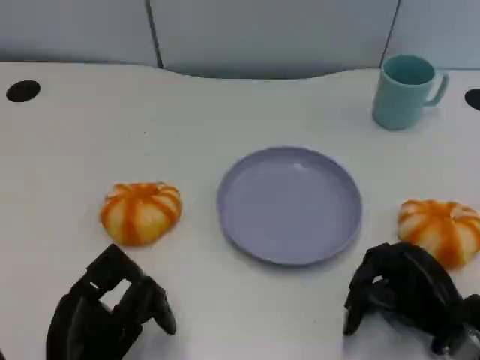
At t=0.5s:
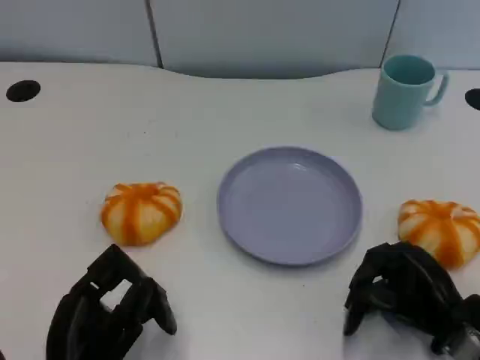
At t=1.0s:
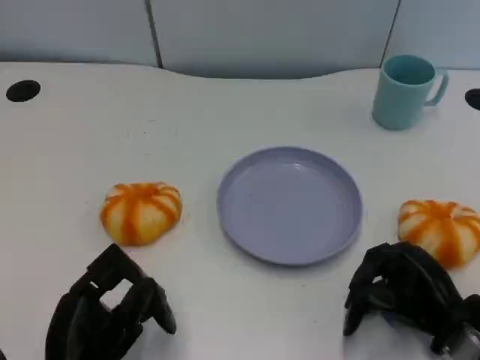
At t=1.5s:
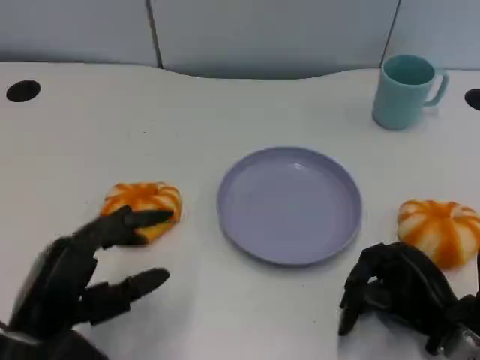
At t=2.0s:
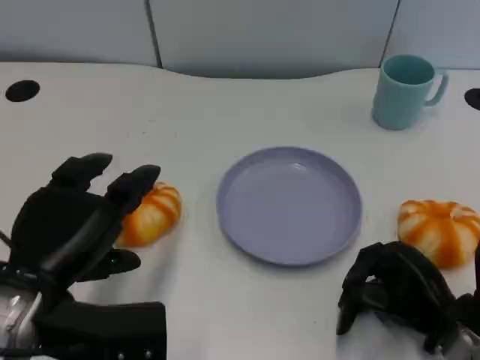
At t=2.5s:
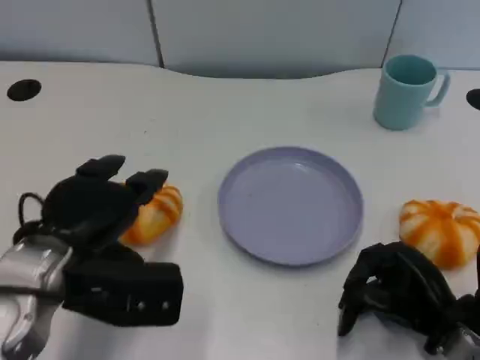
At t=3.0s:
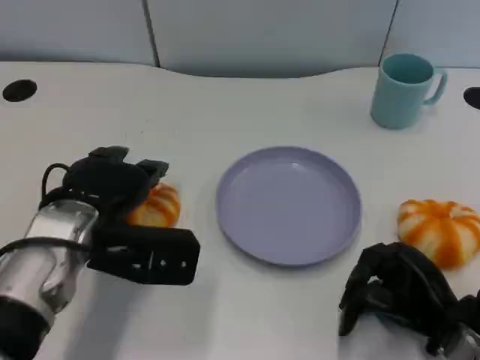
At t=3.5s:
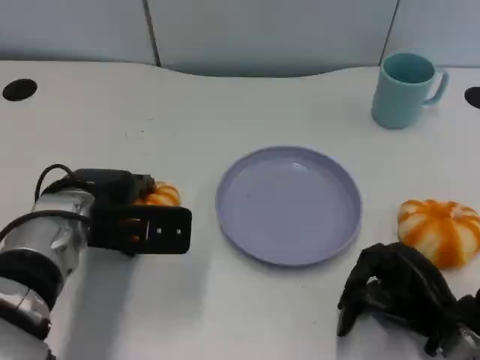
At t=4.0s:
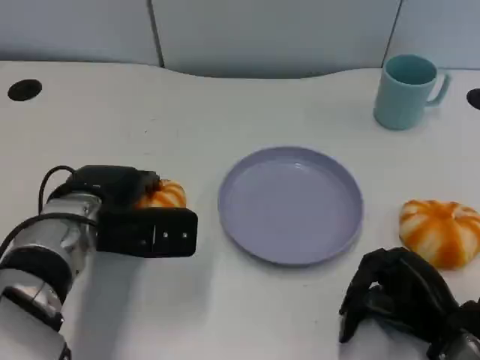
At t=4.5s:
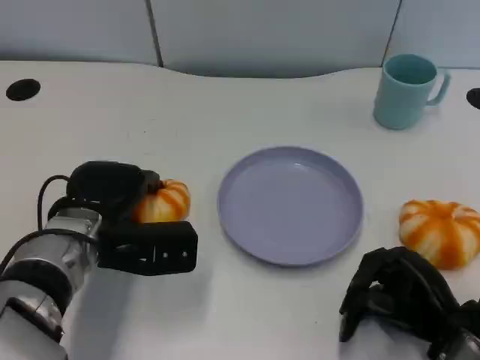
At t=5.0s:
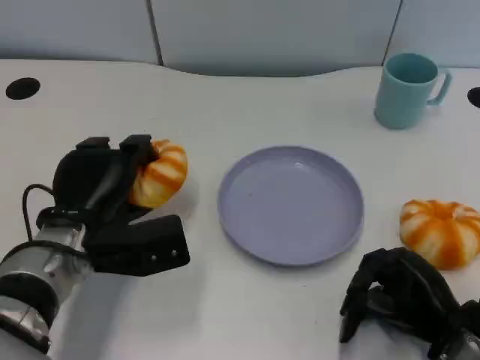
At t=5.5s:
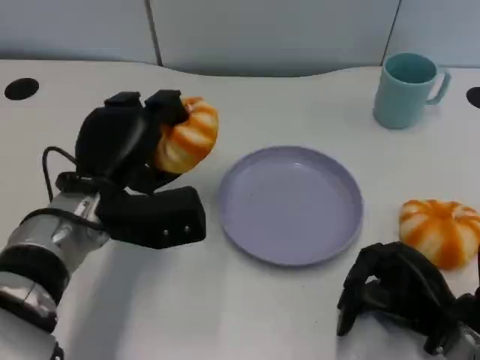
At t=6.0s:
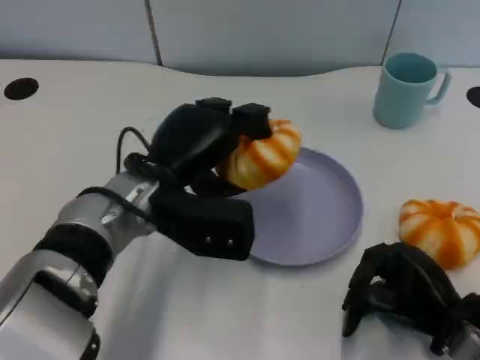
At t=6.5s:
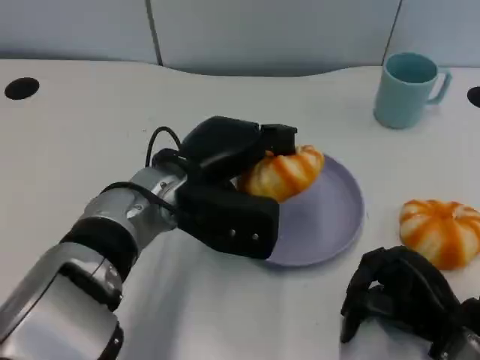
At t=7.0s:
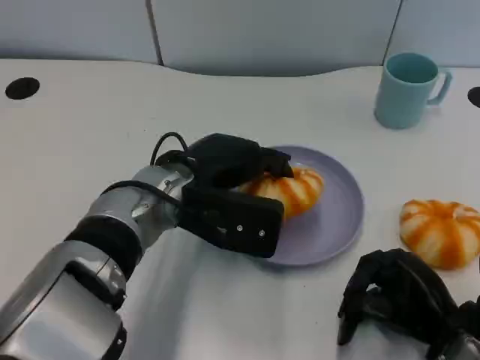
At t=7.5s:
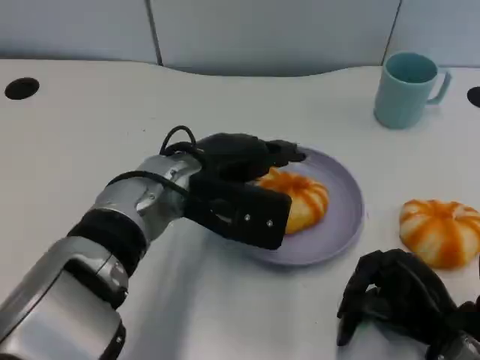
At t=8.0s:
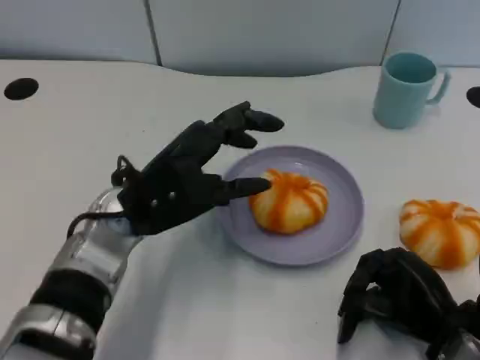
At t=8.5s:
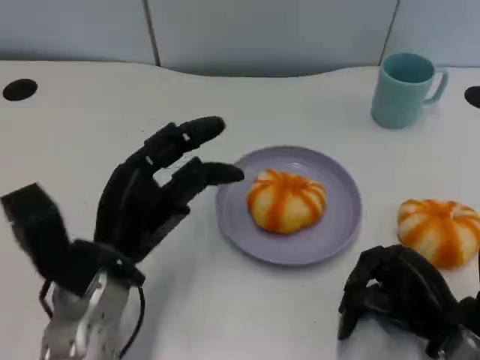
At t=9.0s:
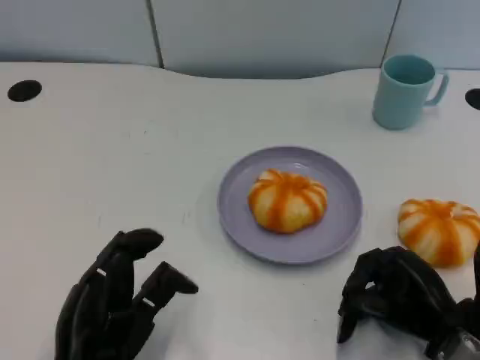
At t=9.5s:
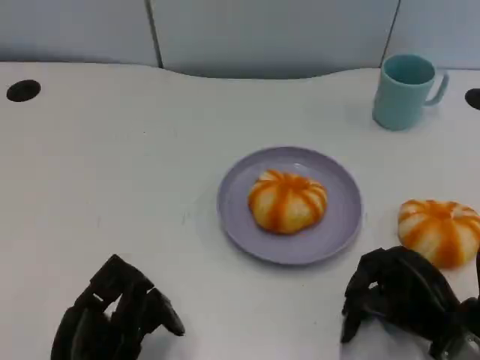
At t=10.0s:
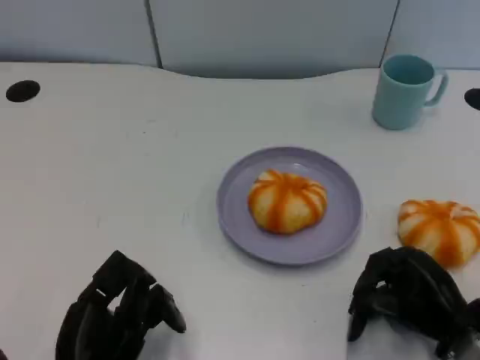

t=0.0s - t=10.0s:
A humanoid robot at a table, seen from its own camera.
Task of the whole recording: Grasp the bread from the table and place it into the plate.
t=0.0s - t=2.0s: The left hand goes approximately 10 cm upward and forward.
t=2.0s - t=4.0s: The left hand shifts some 10 cm forward.
t=4.0s - t=6.0s: The left hand goes about 5 cm to the right.
t=8.0s - t=10.0s: The left hand is displaced backward and downward by roughly 20 cm.

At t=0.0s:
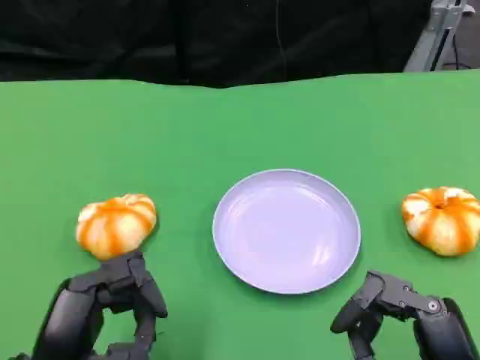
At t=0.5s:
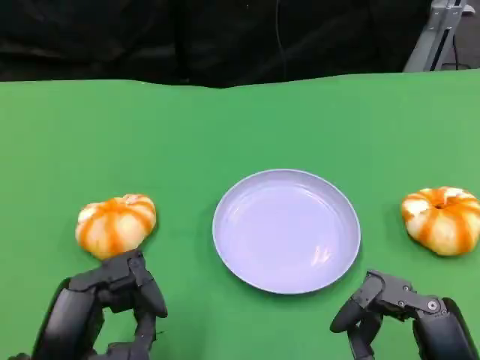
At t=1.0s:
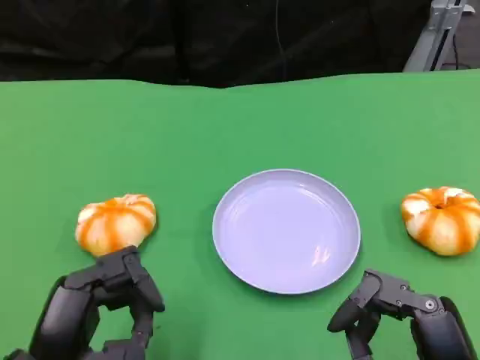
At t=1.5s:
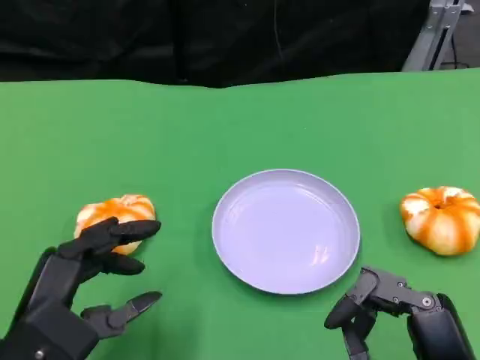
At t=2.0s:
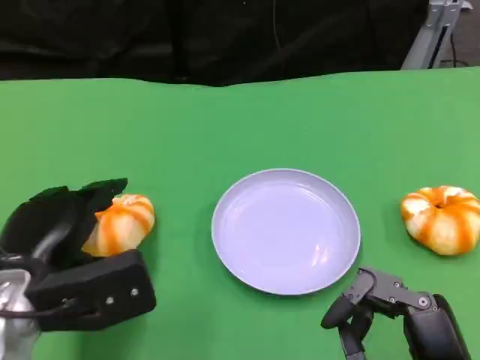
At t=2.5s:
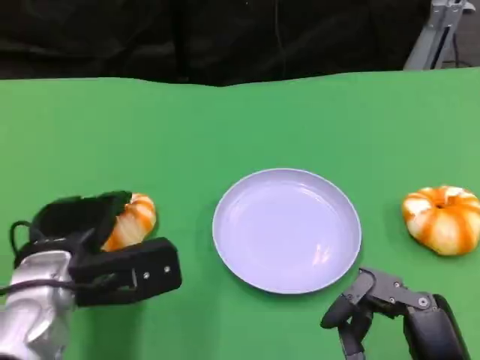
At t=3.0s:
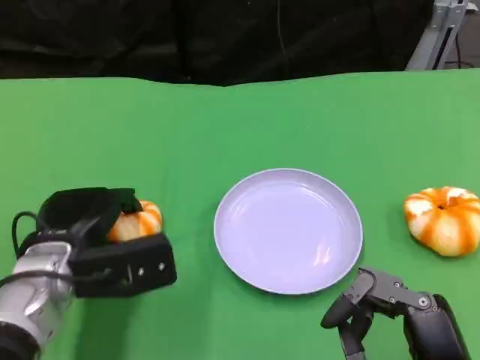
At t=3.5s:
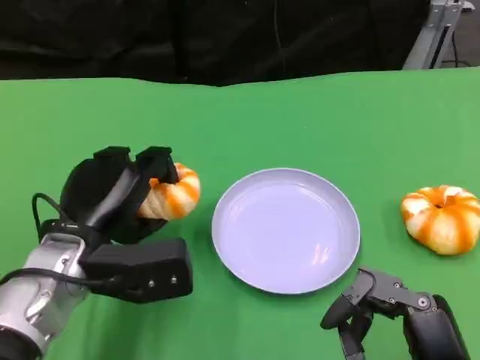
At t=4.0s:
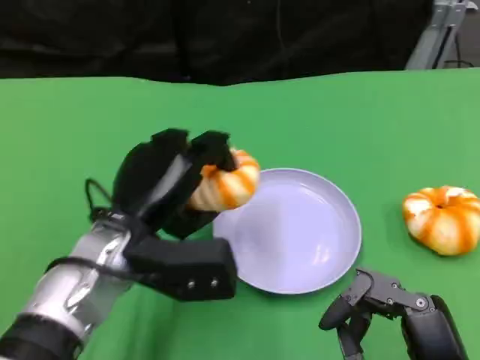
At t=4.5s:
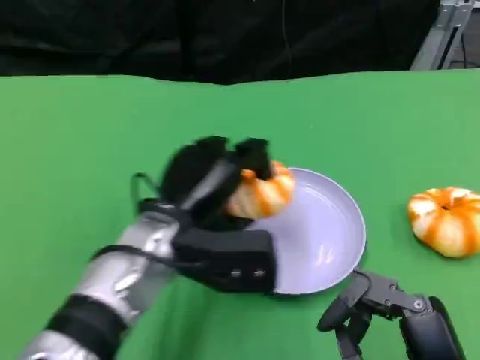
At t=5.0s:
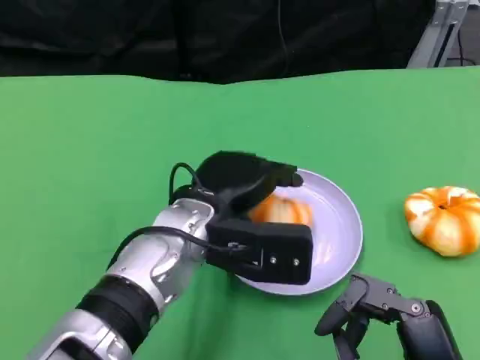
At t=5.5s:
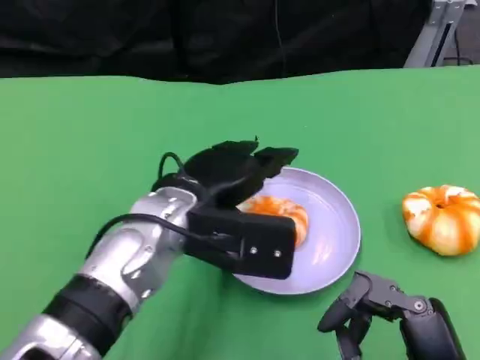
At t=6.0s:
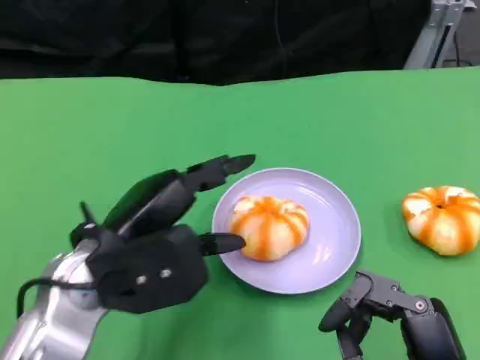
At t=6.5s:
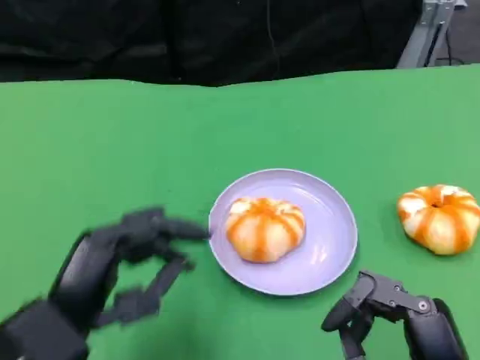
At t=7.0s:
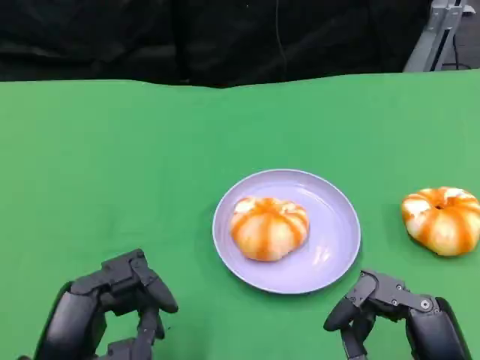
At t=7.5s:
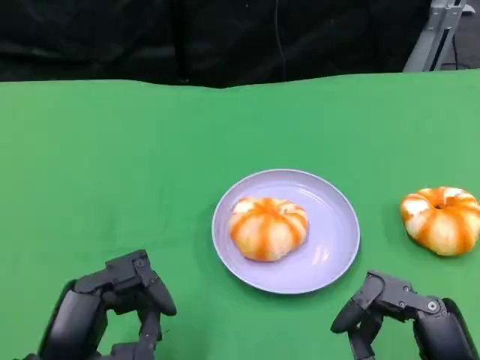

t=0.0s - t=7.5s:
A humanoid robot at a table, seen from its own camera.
Task of the whole recording: Grasp the bread from the table and place it into the plate.
t=0.0s - t=2.0s: The left hand heads forward, covering approximately 10 cm.
t=2.0s - t=4.0s: The left hand moves to the right, roughly 10 cm.
t=5.5s - t=7.5s: The left hand moves backward, to the left and downward, approximately 20 cm.

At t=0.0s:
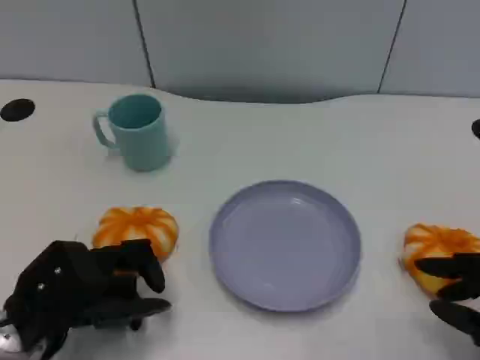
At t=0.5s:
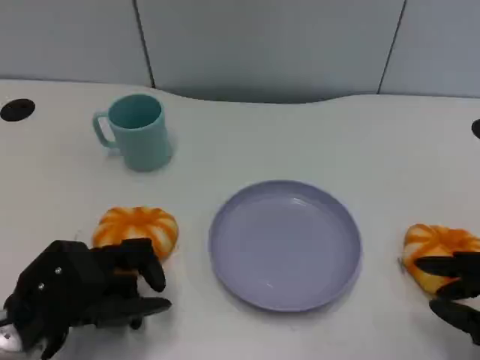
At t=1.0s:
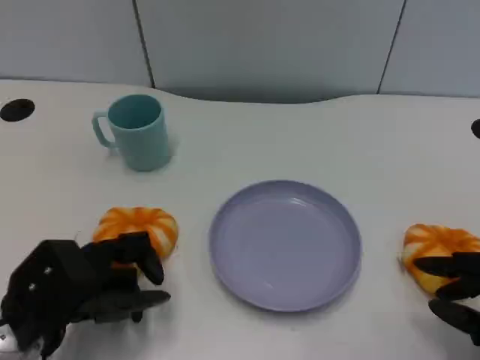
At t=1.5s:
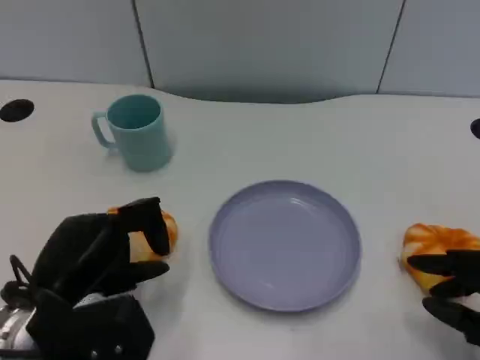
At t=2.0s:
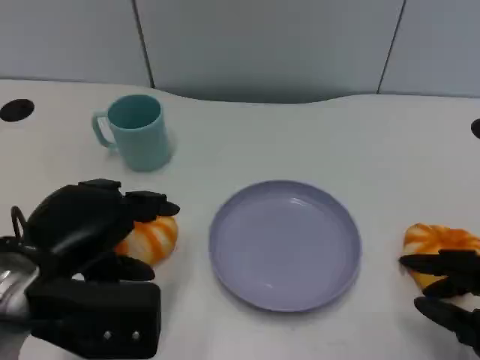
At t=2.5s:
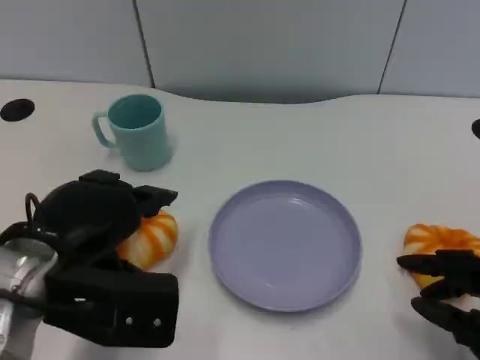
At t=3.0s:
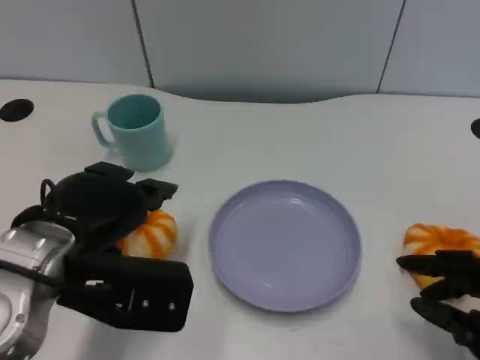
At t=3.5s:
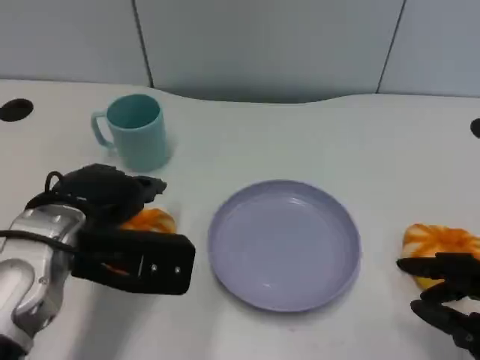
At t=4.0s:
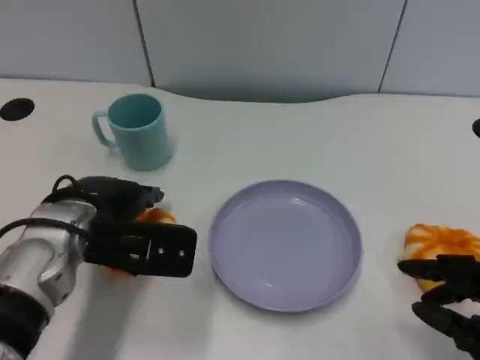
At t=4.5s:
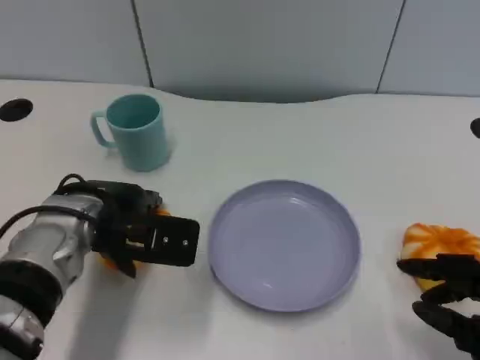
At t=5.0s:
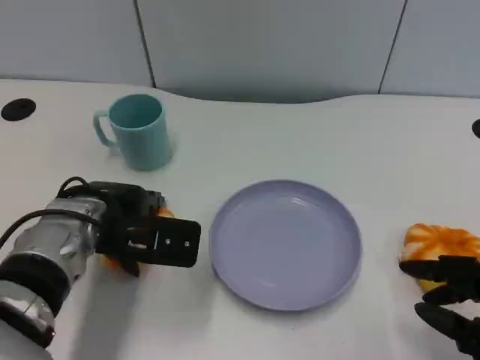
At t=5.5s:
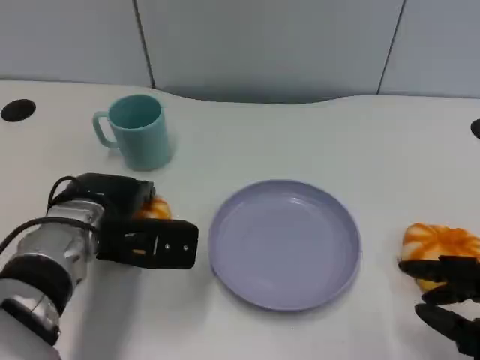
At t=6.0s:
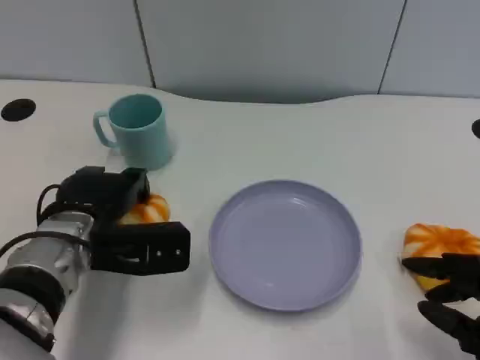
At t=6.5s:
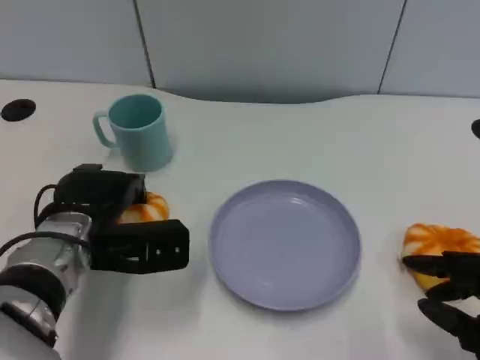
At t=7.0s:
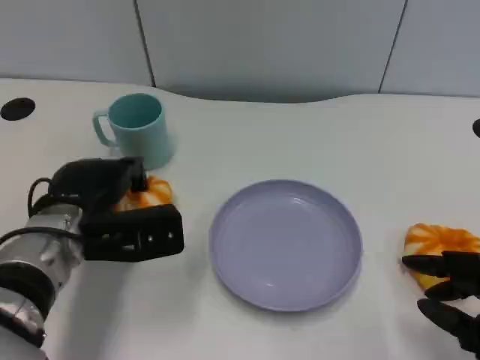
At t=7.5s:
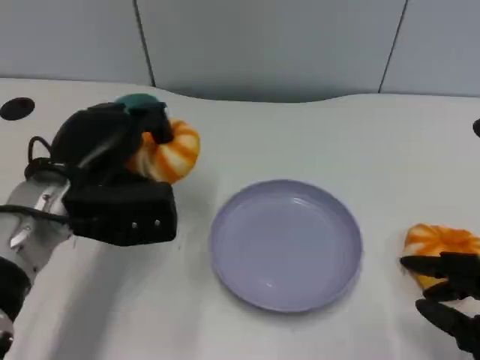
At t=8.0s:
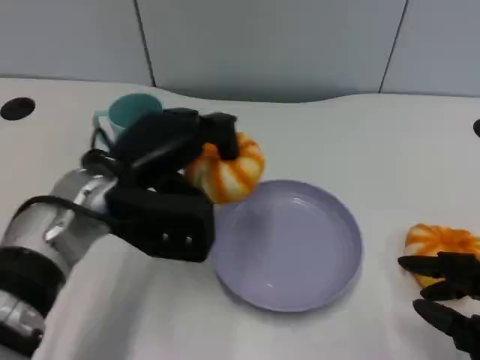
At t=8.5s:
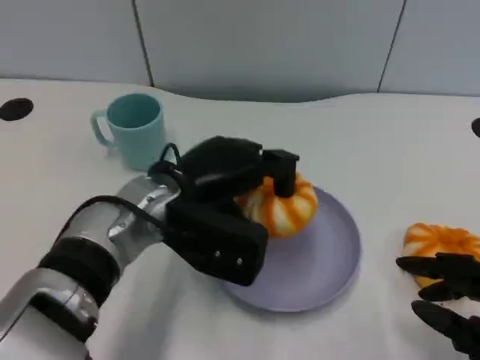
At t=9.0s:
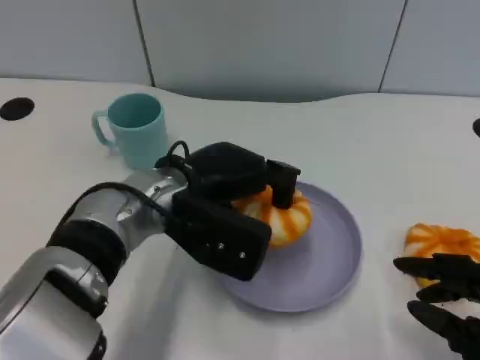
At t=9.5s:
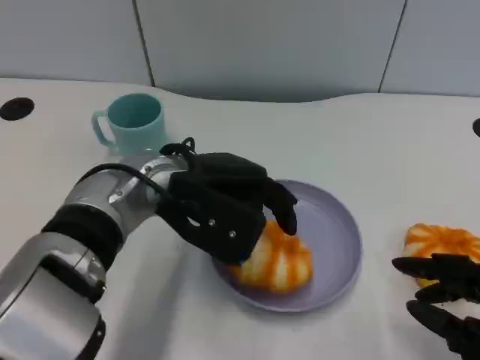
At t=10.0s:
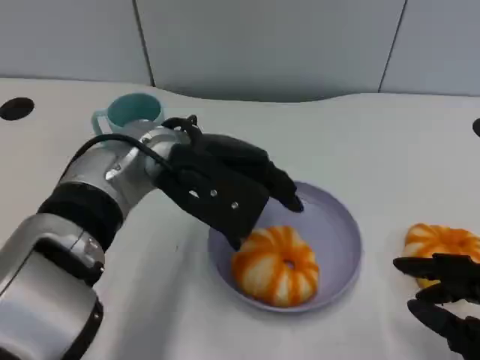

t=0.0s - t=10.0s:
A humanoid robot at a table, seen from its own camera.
Task of the whole recording: Grasp the bread from the table and place it into the plate.
t=0.0s - t=2.0s: The left hand travels upward by about 10 cm.
t=2.0s - t=4.0s: The left hand heads forward, covering some 10 cm.
t=4.0s - t=6.0s: The hands move only a little.
t=6.0s - t=8.0s: The left hand travels upward by some 5 cm.
t=8.0s - t=10.0s: The left hand moves to the right, about 5 cm.
